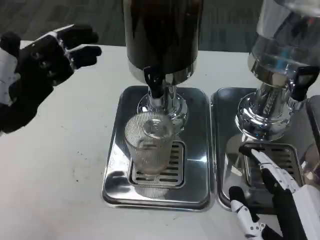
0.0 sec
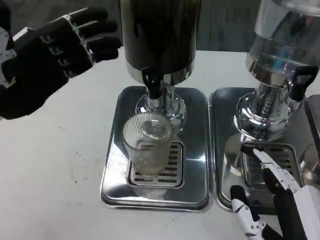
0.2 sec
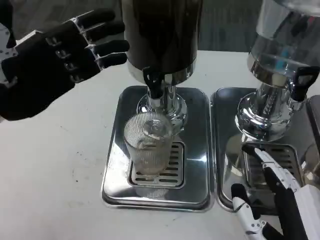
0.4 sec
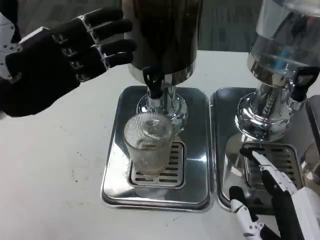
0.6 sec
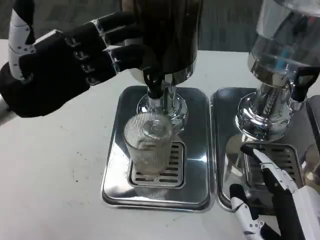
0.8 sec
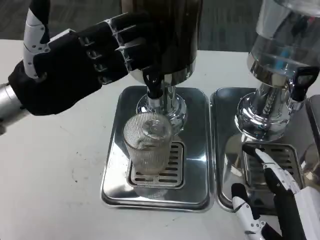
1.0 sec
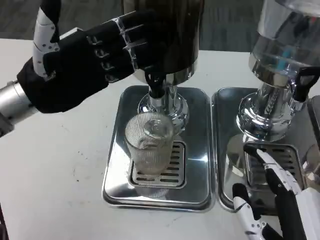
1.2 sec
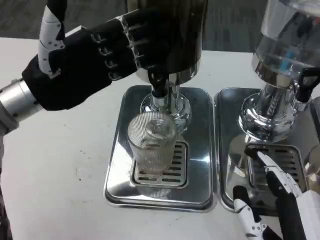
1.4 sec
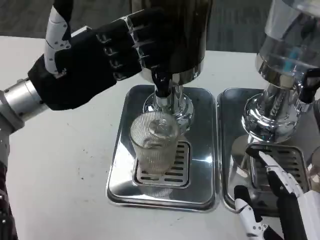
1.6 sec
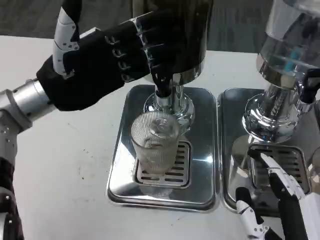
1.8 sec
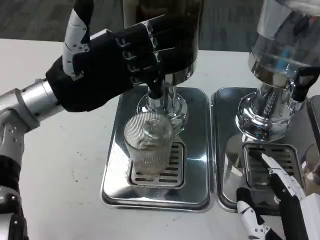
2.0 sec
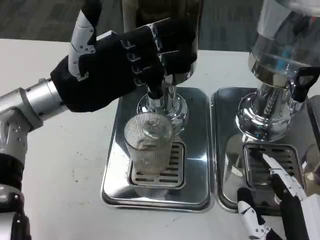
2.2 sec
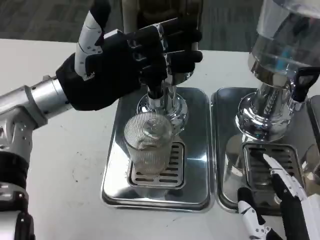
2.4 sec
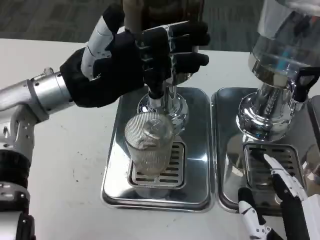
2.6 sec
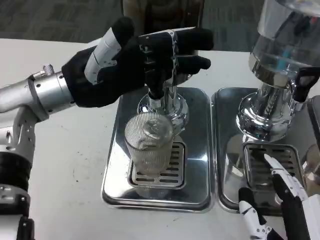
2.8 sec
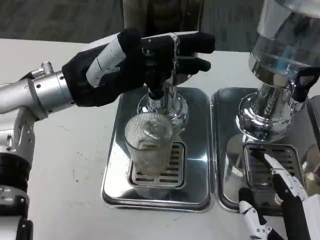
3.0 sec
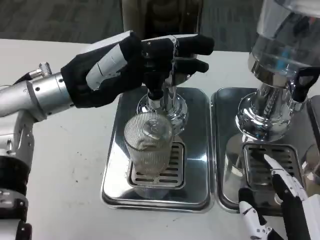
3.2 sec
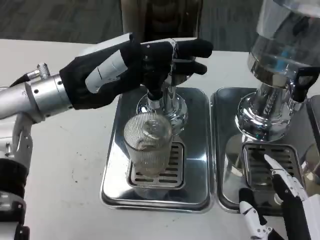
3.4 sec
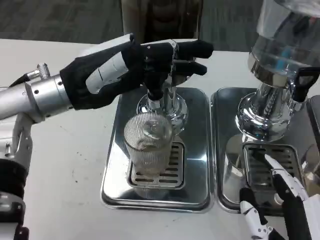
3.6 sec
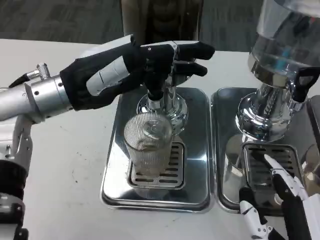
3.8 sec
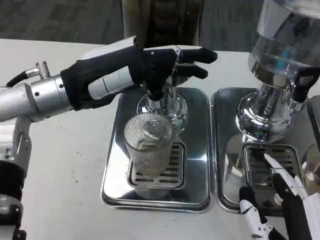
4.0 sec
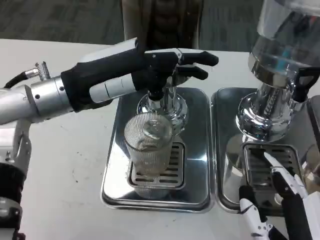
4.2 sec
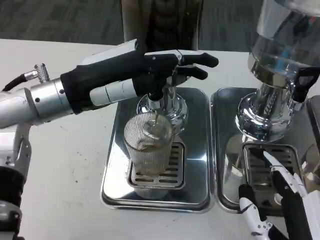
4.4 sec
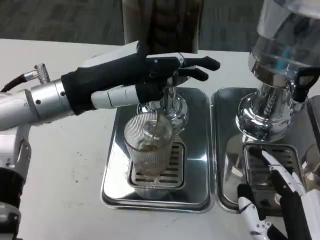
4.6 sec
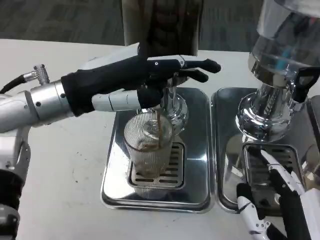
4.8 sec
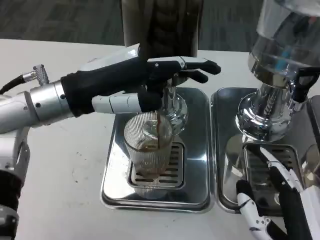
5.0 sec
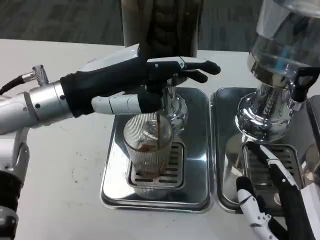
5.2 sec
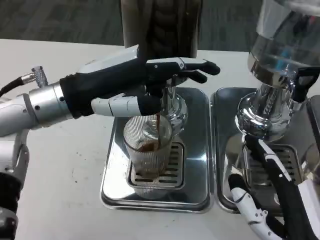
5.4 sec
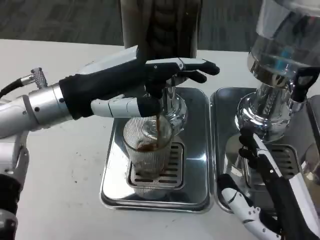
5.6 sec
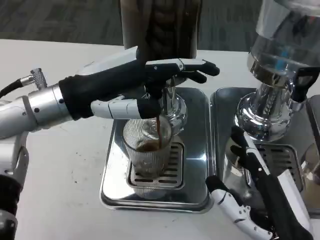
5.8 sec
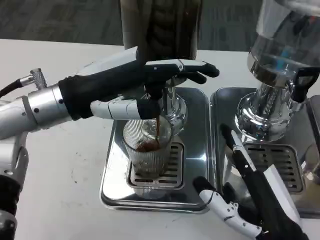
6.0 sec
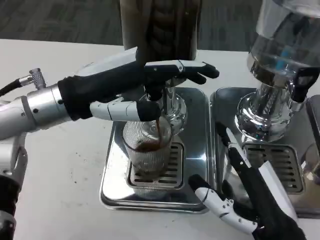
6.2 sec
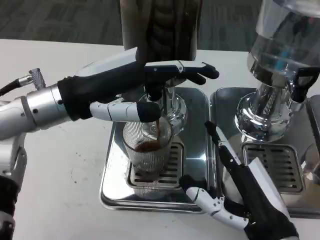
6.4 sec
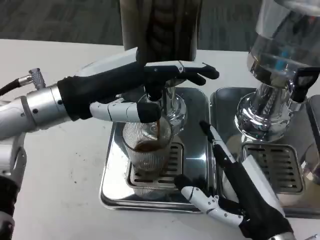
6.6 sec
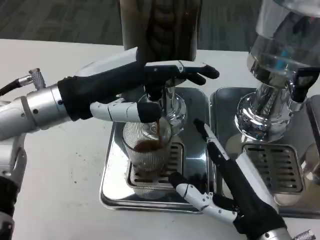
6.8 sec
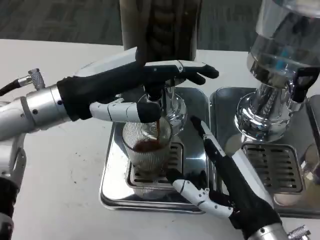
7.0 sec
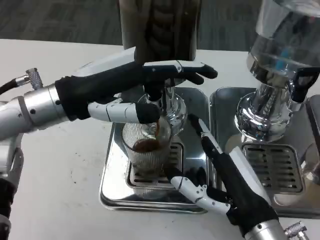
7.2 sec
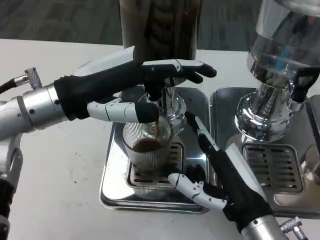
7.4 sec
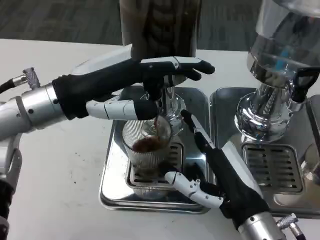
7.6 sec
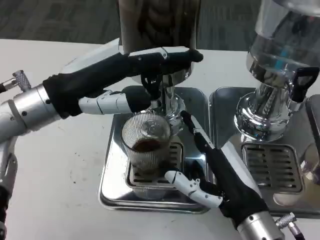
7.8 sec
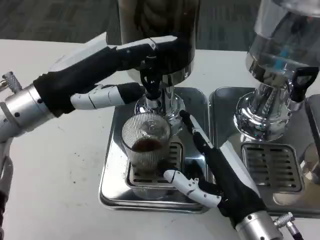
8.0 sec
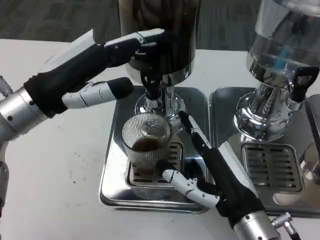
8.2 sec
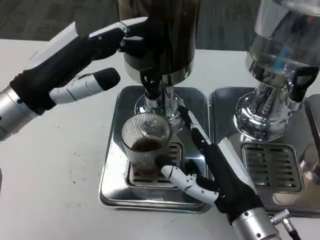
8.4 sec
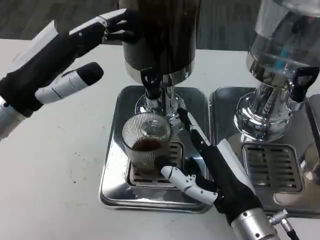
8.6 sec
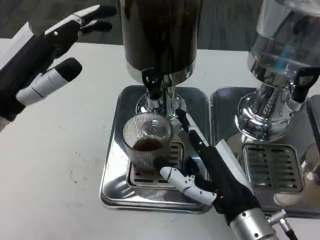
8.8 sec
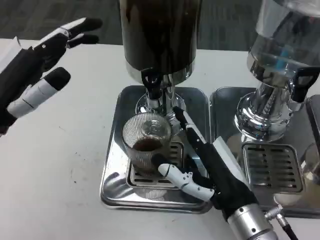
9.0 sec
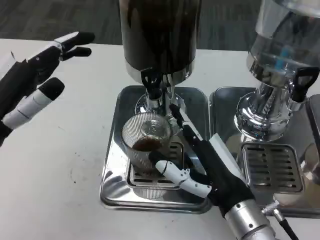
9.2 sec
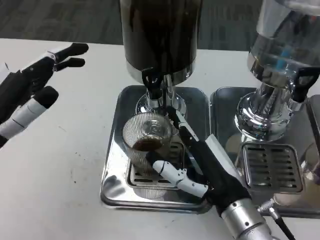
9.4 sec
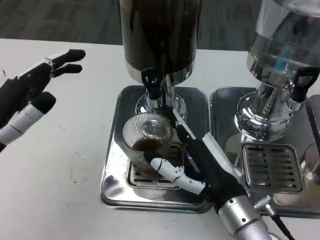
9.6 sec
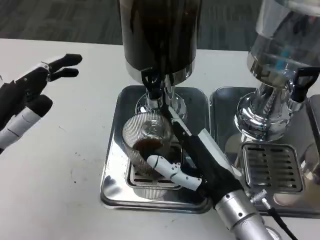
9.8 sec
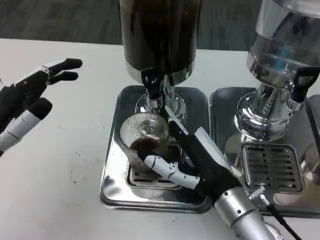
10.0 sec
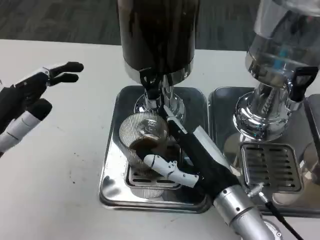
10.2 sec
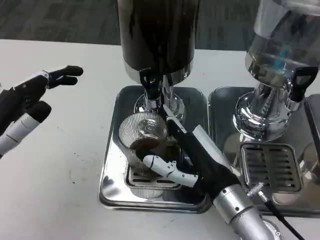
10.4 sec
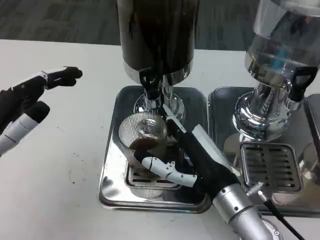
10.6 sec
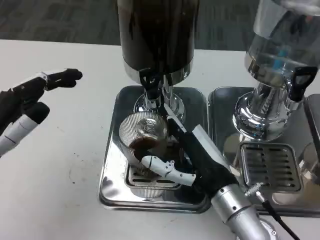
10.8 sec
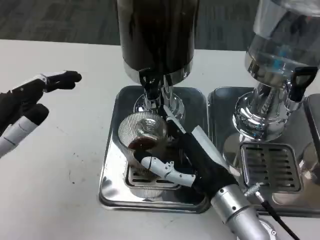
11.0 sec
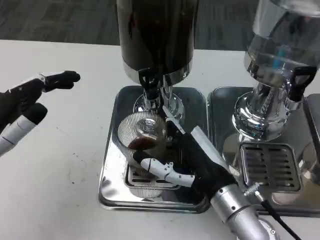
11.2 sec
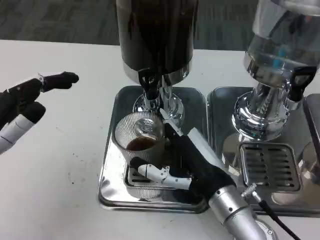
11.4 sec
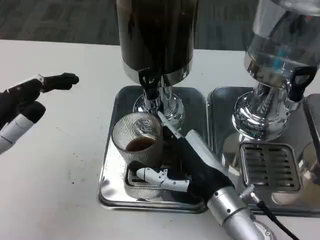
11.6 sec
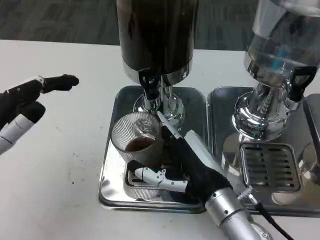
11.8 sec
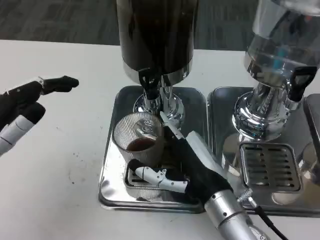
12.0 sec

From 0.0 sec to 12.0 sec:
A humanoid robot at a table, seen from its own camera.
Task of the whole recording: Grasp the cup under the faucet to collect the drink, then remove the cup.
From 0.0 sec to 1.6 sec: The left hand shifts roughly 5 cm to the right and forward.
From 3.0 sec to 4.4 sec: There are only small adjustments of the hands.
From 6.0 sec to 7.6 sec: The right hand ends up roughly 5 cm from where it was.
From 7.6 sec to 9.0 sec: The left hand shifts some 5 cm to the left.
From 9.0 sec to 10.4 sec: The left hand moves roughly 5 cm.
From 10.4 sec to 12.0 sec: The hands stay close to where they were, moving slightly.

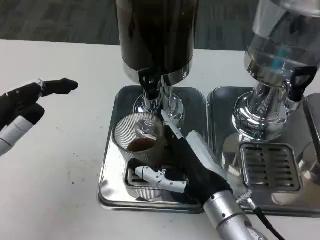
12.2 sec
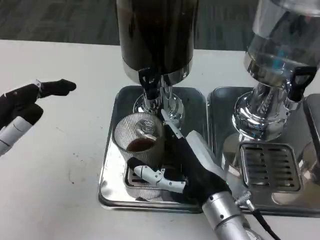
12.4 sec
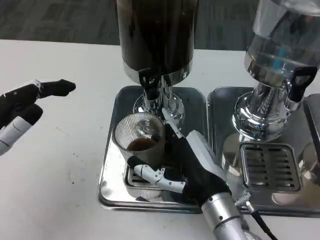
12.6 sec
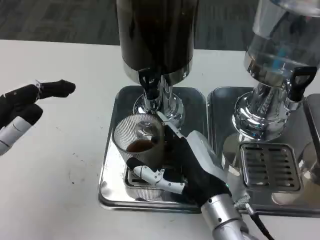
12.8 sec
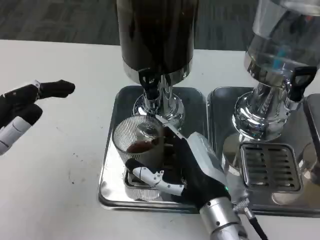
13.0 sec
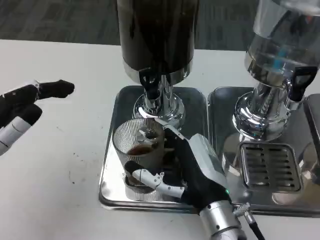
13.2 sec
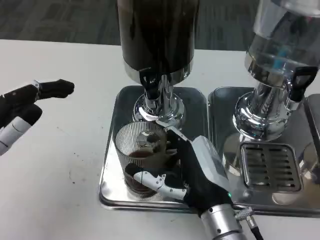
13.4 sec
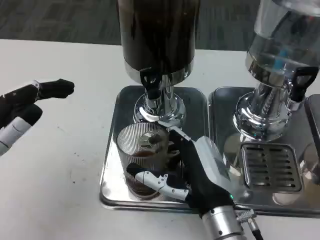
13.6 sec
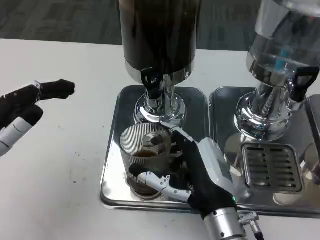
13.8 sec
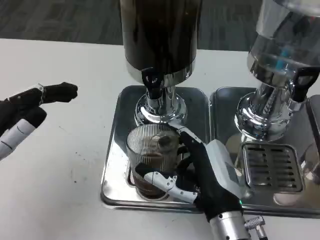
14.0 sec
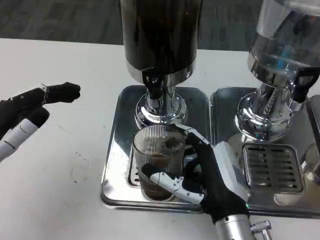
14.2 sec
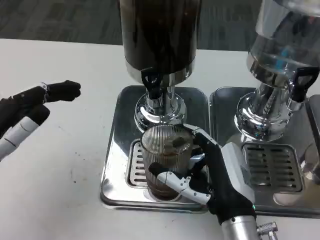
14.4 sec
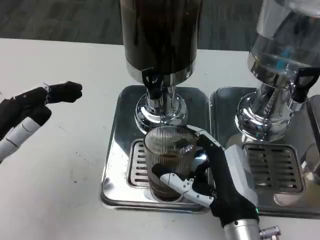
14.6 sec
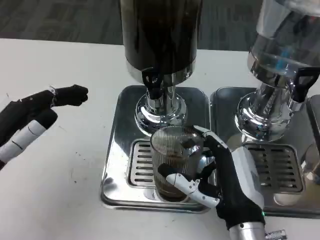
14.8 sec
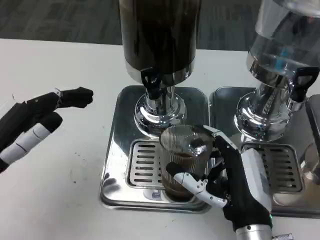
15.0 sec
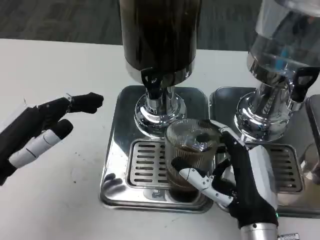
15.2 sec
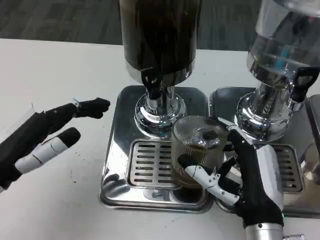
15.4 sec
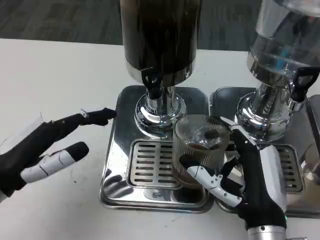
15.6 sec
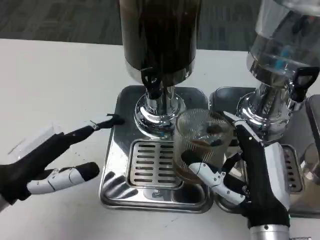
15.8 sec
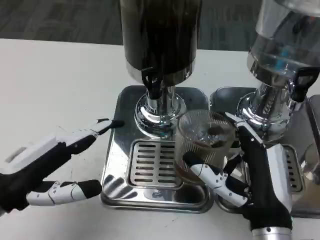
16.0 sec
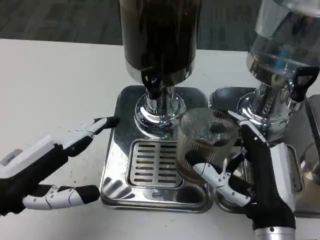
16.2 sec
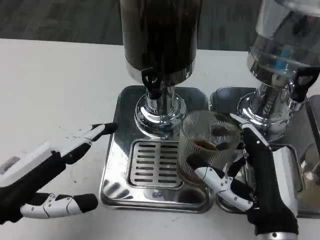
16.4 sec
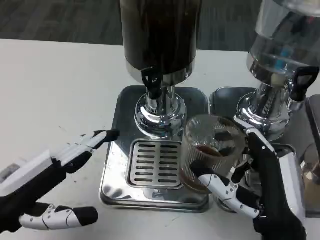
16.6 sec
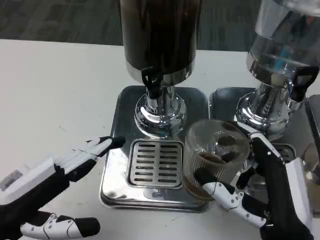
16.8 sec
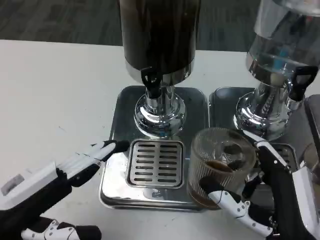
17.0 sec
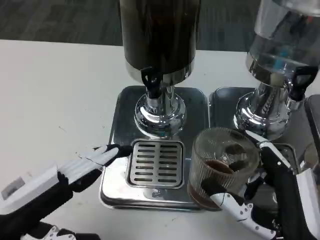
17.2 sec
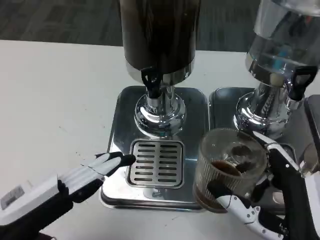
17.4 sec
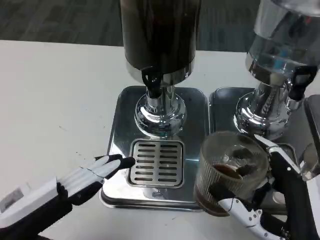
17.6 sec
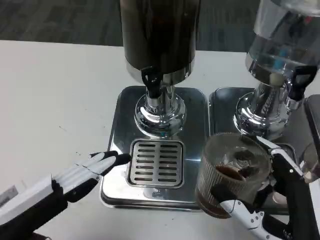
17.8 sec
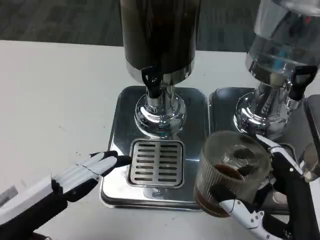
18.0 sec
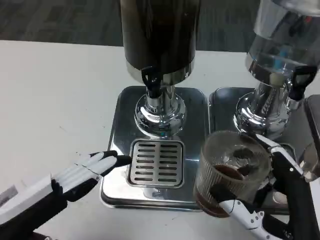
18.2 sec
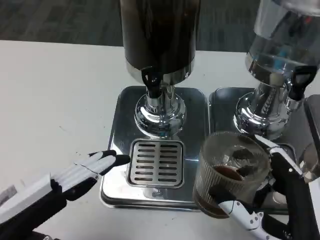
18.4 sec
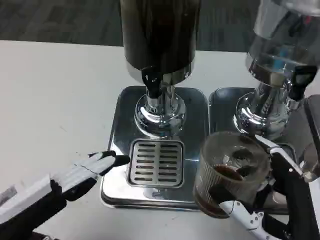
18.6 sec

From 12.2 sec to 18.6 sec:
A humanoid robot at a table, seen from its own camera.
Task of the whole recording: Grasp the cup under the faucet to collect the drink, then remove the cup.
From 12.2 sec to 13.8 sec: The hands move only a little.
From 15.4 sec to 17.0 sec: The hands both shift backward by approximately 5 cm.
From 17.0 sec to 18.6 sec: The hands make only small movements.

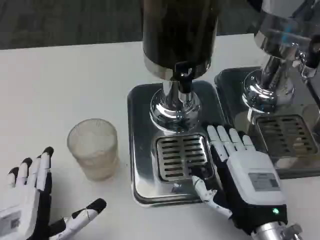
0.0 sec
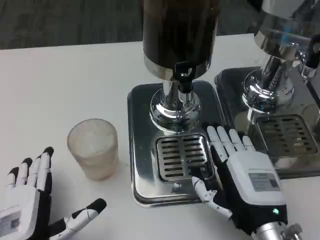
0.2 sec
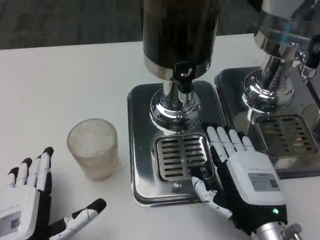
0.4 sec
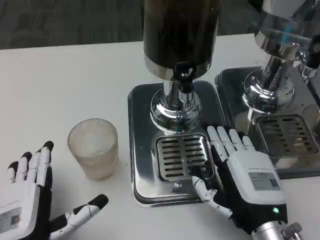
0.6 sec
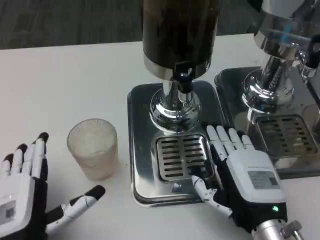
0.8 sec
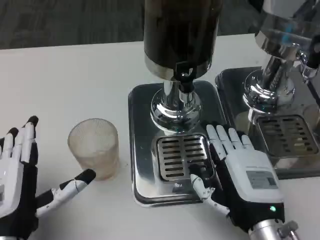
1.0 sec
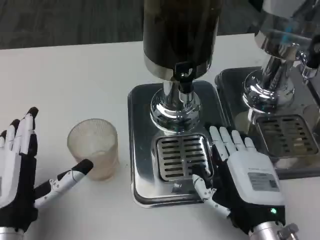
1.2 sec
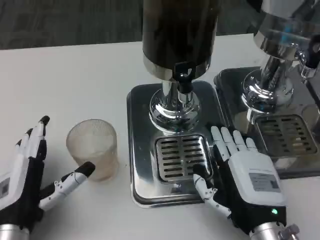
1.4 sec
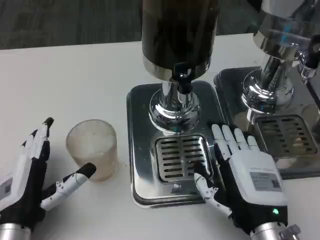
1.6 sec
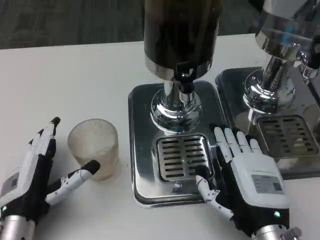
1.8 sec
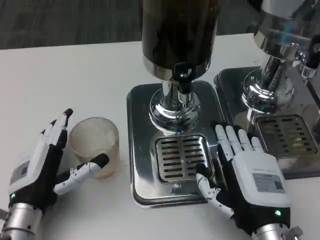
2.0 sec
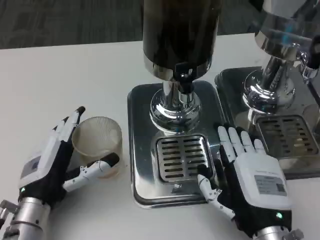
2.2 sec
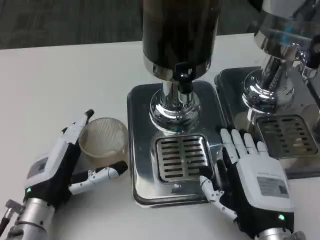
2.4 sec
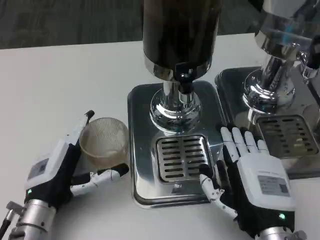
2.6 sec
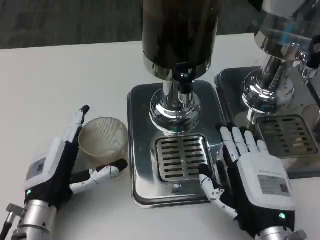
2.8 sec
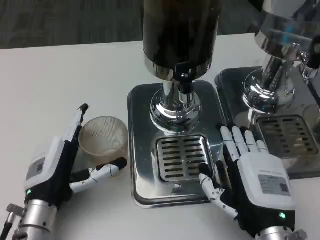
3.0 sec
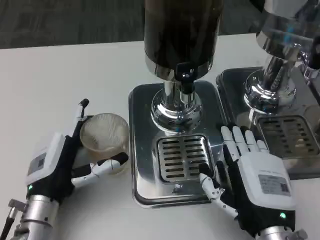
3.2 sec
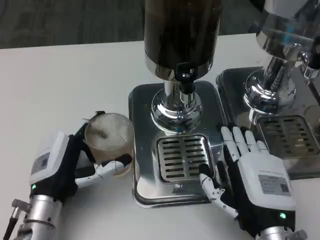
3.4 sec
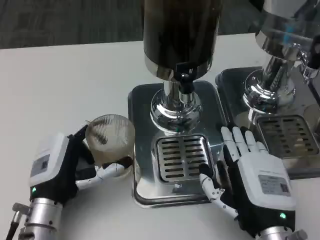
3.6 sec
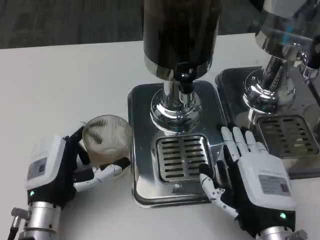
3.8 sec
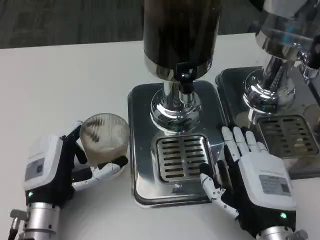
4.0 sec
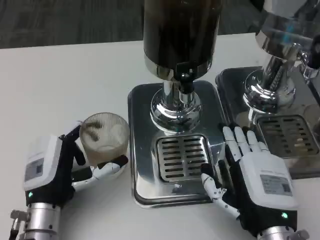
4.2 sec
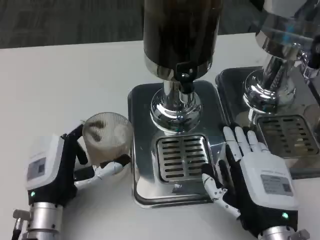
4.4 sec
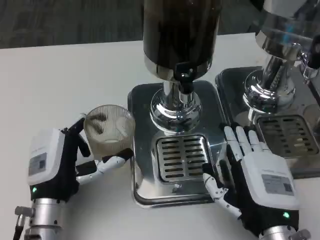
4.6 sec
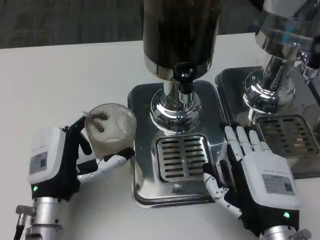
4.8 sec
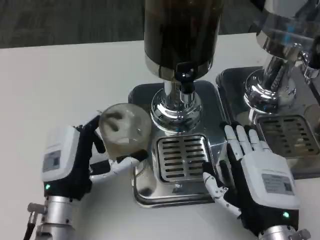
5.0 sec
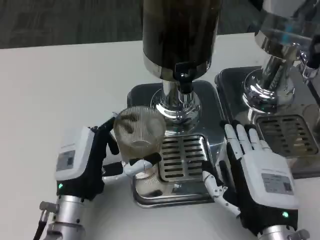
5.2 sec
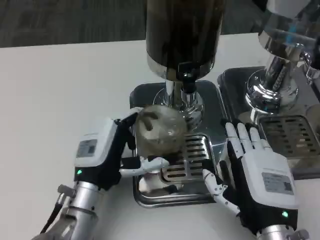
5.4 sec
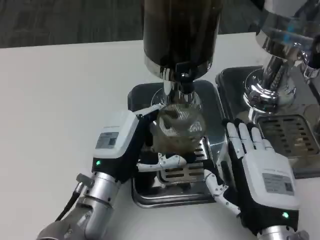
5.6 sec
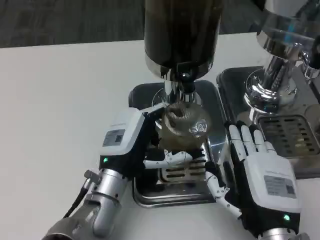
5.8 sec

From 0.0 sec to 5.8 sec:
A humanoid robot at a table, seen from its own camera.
Task of the whole recording: Grasp the cup under the faucet to collect the drink, then remove the cup.
From 0.0 sec to 1.4 sec: The left hand moves forward, about 5 cm.
From 2.8 sec to 4.4 sec: There are only small adjustments of the hands.
From 4.4 sec to 5.8 sec: The left hand heads to the right, covering some 10 cm.
